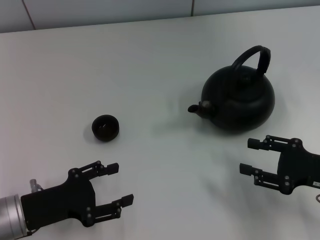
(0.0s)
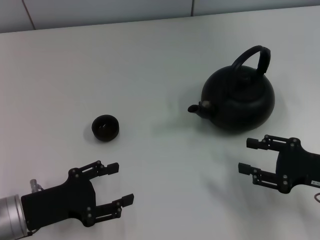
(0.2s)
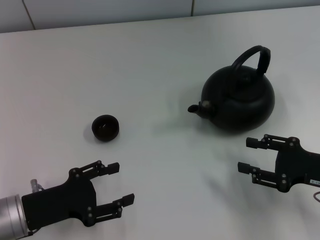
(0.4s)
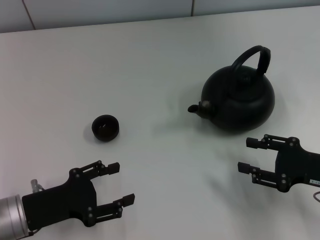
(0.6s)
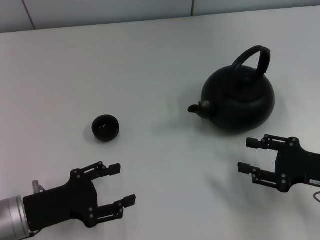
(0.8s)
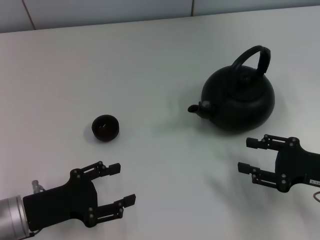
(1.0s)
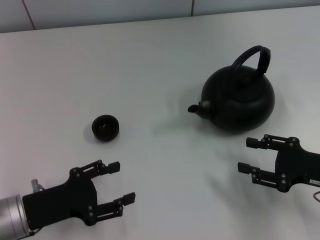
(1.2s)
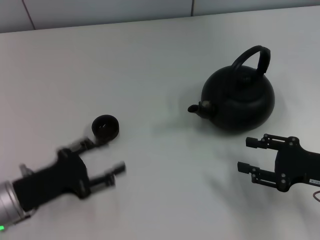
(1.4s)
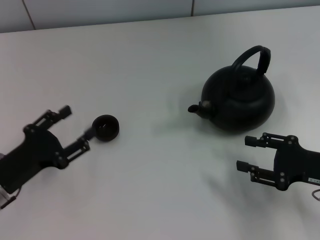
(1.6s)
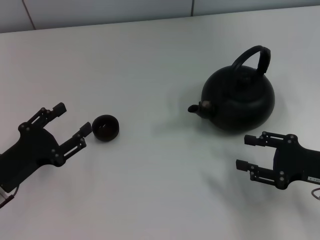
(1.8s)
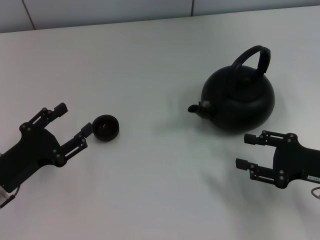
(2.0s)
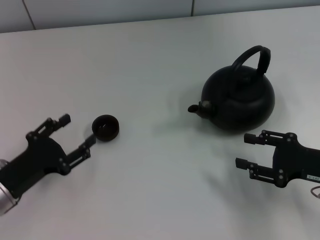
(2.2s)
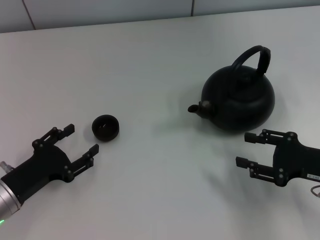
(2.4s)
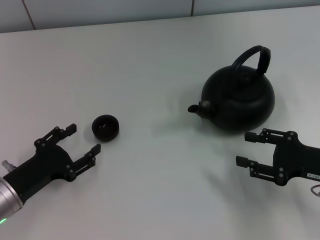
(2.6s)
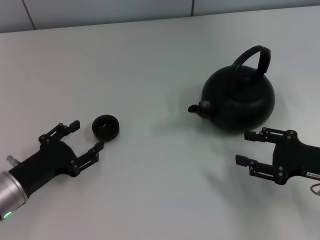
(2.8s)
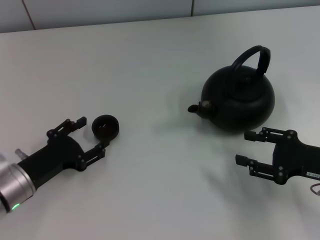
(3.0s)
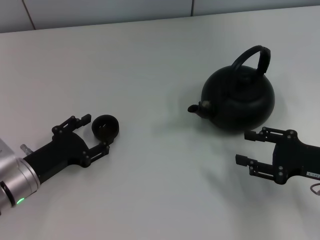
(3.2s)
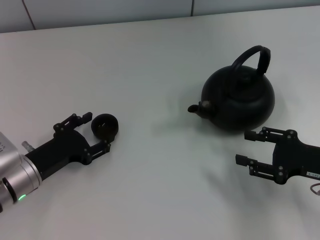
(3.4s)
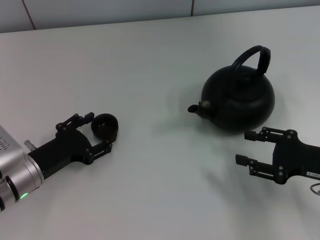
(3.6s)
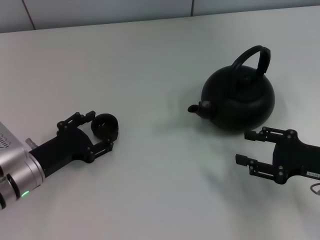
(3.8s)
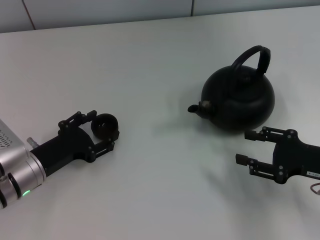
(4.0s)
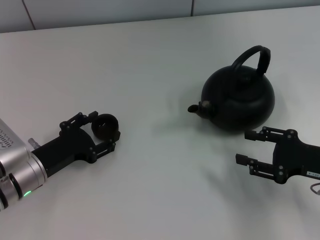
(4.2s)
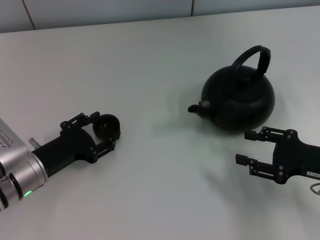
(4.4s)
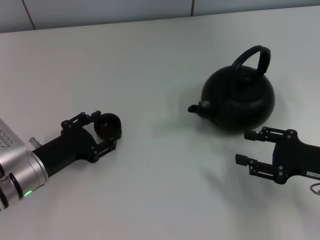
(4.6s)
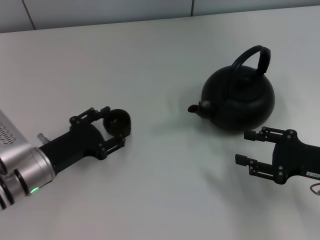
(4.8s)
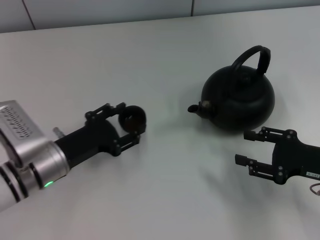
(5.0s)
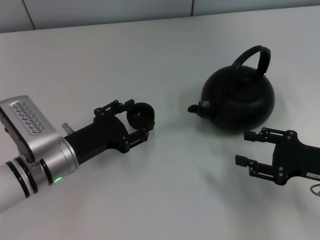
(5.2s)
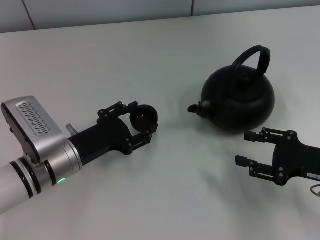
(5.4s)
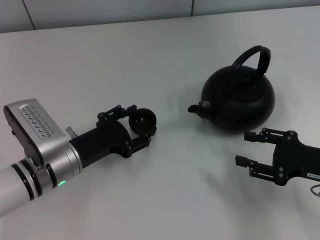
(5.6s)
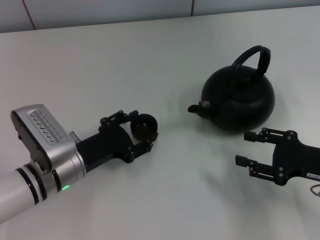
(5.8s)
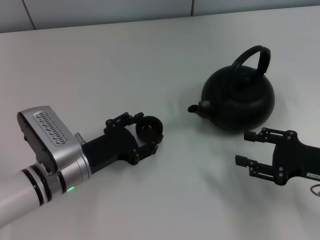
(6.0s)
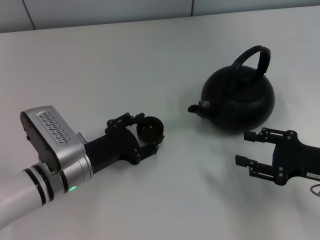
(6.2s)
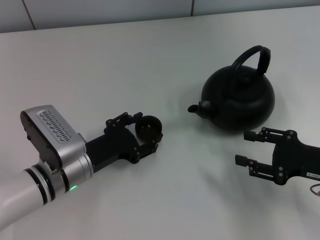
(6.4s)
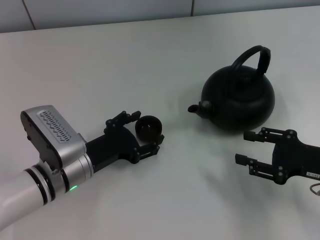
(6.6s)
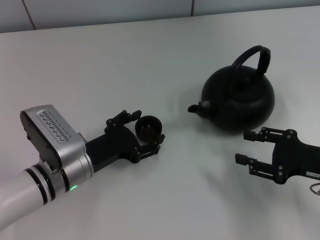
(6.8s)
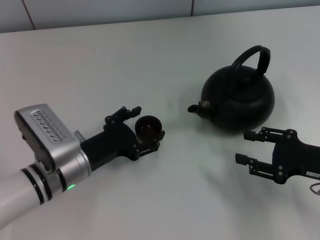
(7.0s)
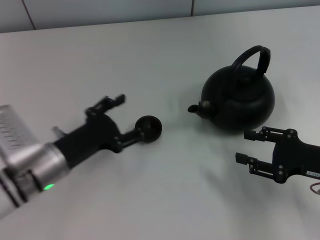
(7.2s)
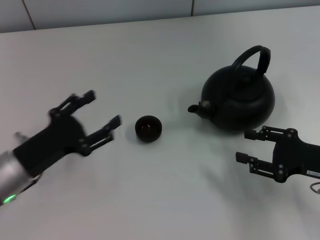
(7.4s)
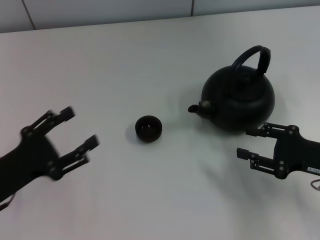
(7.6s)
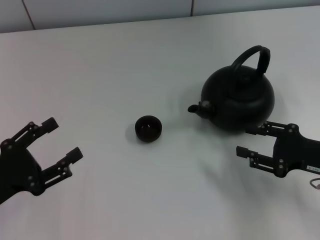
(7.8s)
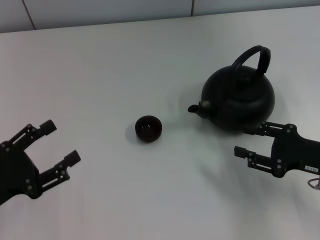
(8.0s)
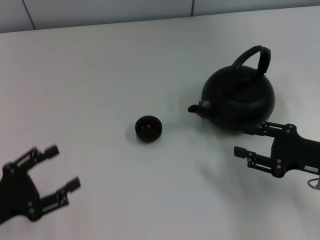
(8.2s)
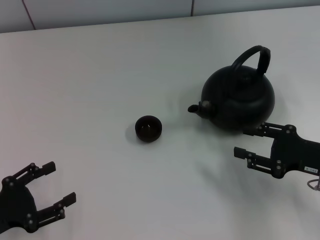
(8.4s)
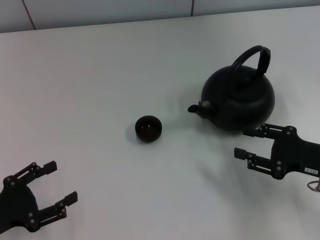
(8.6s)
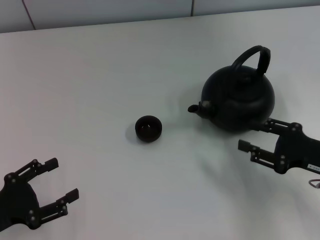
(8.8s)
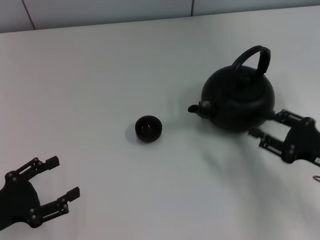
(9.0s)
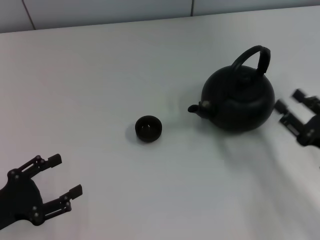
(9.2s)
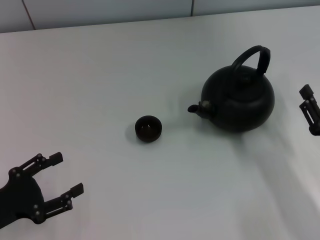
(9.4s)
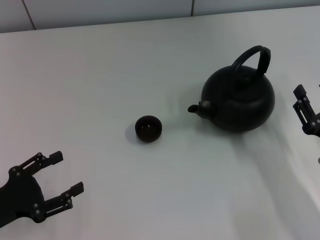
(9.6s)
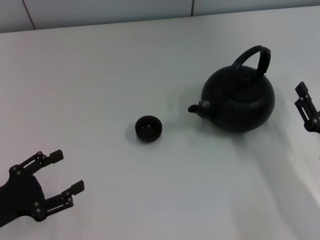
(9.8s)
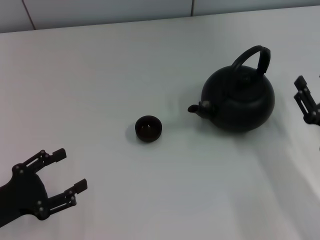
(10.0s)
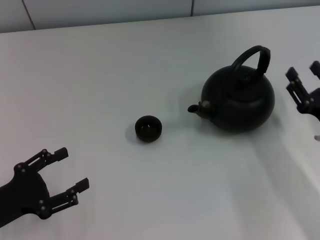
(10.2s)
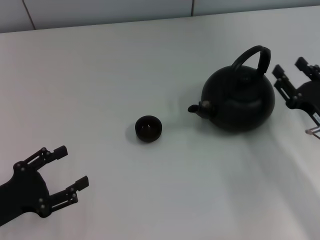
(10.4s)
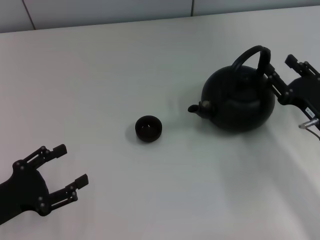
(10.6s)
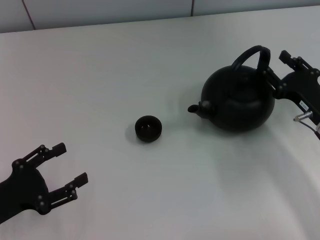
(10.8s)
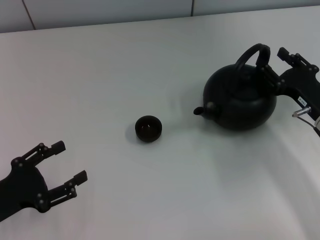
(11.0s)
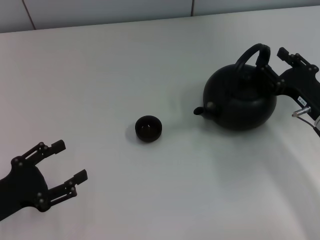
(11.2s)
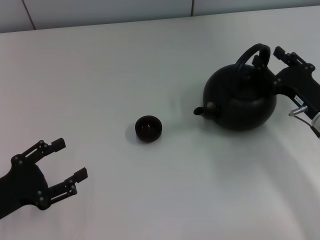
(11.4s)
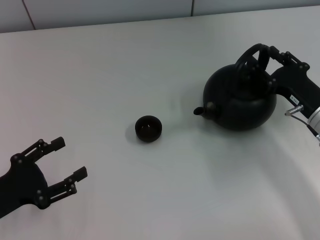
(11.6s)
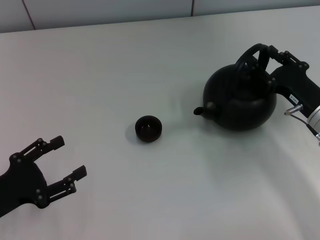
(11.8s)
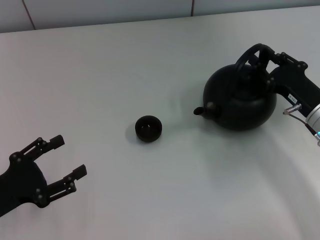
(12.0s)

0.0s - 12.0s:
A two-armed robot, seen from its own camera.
Task of the whole recording: Grasp the handle of the teapot with one hand and pour tea into the teacup.
Step, 0.0s - 4.8s: Pick up the teacup with the left gripper.
Step, 5.0s - 7.0s: Place the teacup in the center of view with the left gripper.
1.6s - 4.4s: There are only small adjustments of the grippers.
4.4s - 6.0s: The left gripper travels to the right by about 5 cm.
6.0s - 7.6s: The left gripper heads to the left and backward, covering approximately 15 cm, and opens.
7.6s - 9.0s: The grippers make only small movements.
10.4s - 12.0s: The right gripper moves roughly 5 cm.

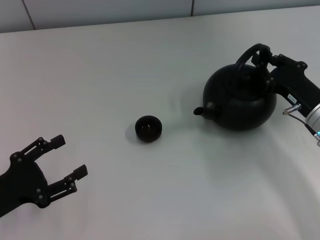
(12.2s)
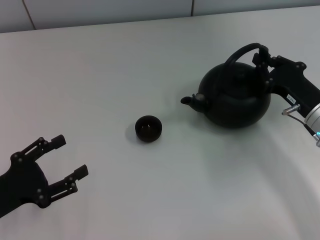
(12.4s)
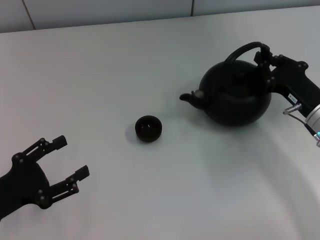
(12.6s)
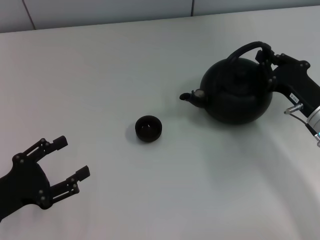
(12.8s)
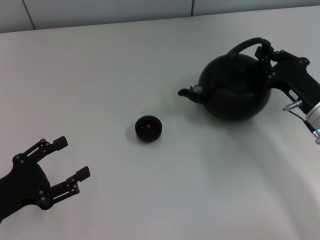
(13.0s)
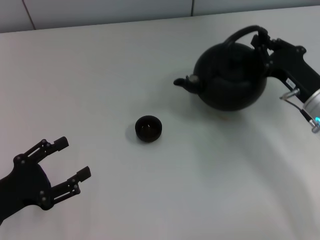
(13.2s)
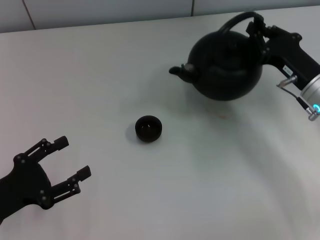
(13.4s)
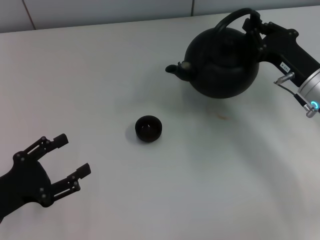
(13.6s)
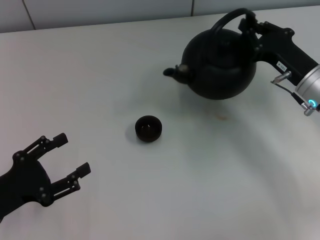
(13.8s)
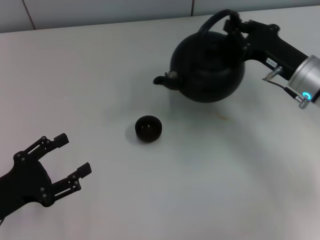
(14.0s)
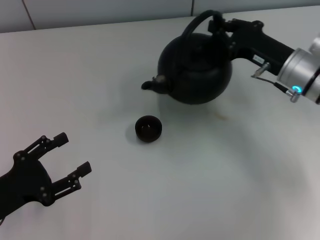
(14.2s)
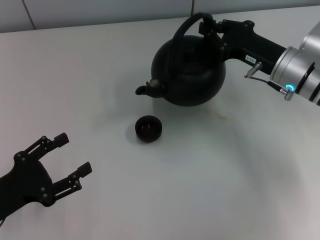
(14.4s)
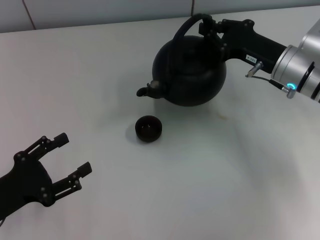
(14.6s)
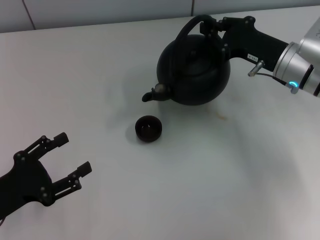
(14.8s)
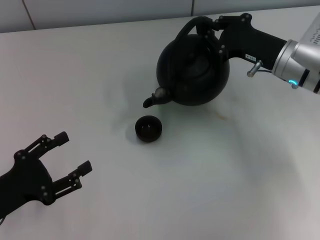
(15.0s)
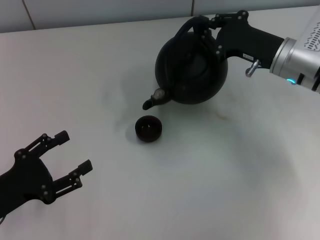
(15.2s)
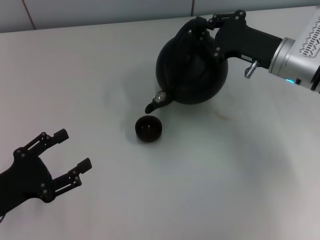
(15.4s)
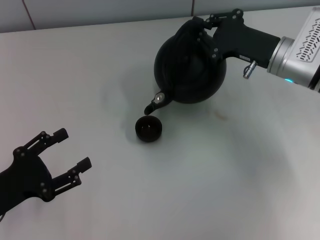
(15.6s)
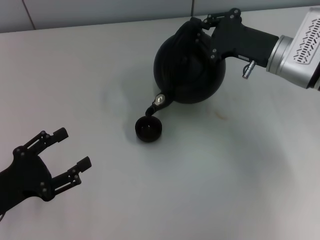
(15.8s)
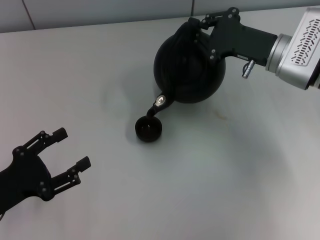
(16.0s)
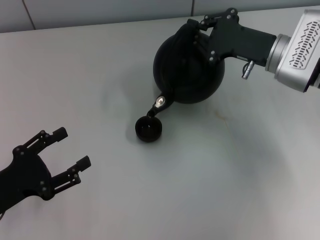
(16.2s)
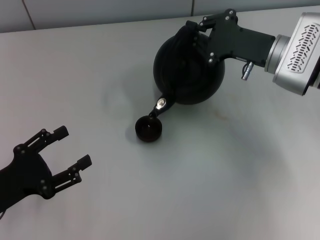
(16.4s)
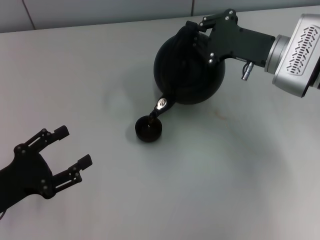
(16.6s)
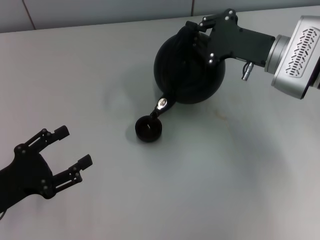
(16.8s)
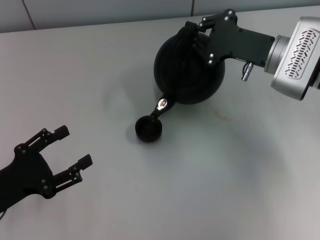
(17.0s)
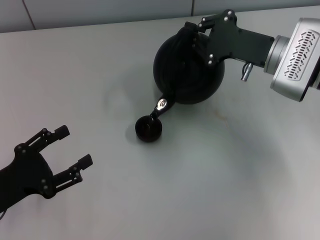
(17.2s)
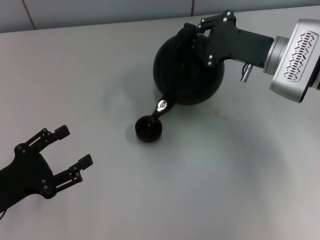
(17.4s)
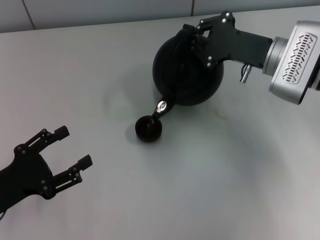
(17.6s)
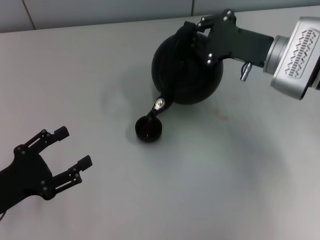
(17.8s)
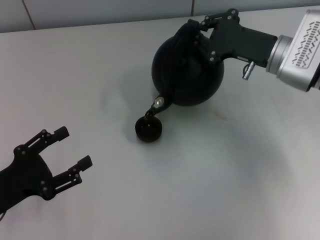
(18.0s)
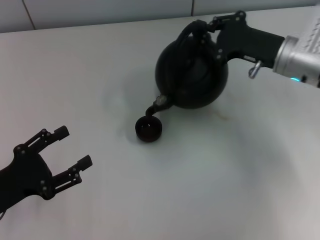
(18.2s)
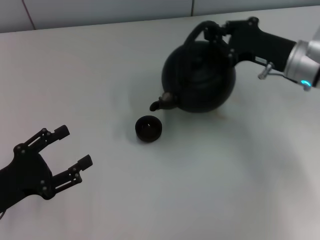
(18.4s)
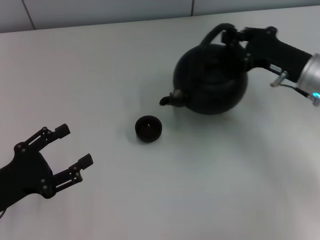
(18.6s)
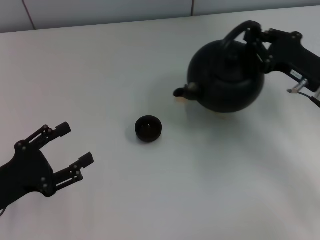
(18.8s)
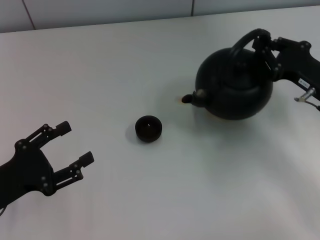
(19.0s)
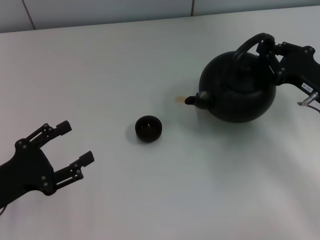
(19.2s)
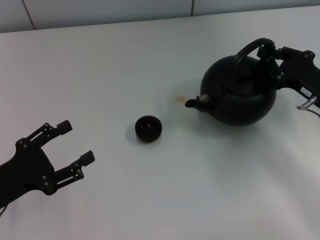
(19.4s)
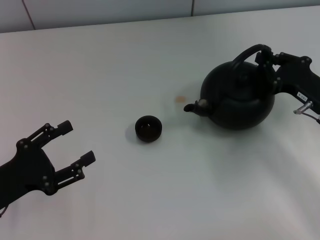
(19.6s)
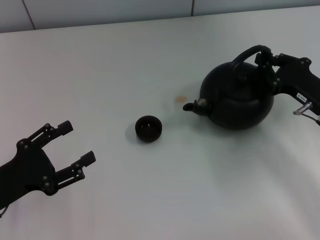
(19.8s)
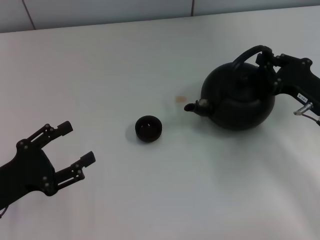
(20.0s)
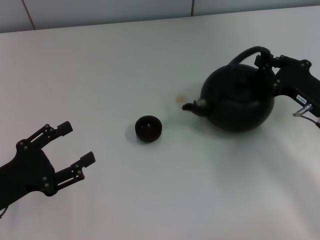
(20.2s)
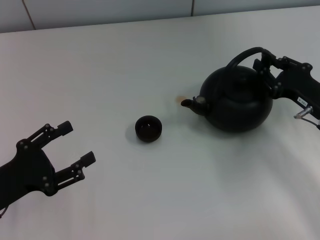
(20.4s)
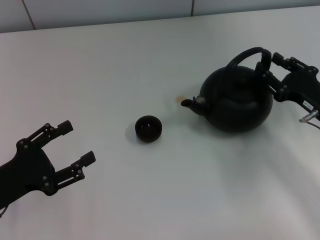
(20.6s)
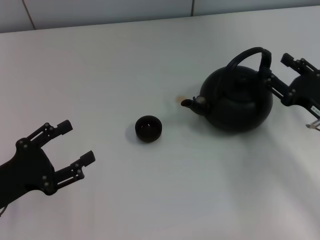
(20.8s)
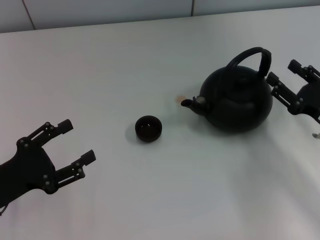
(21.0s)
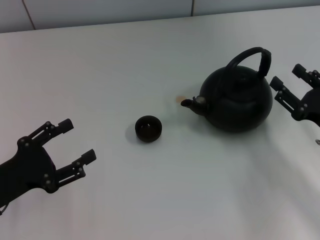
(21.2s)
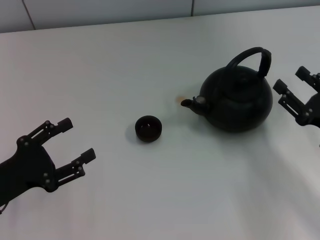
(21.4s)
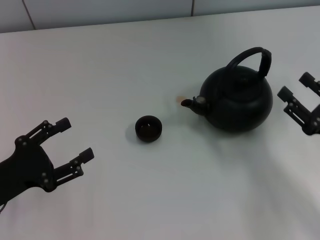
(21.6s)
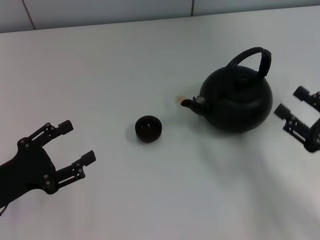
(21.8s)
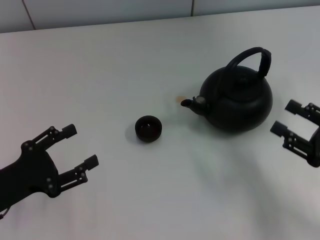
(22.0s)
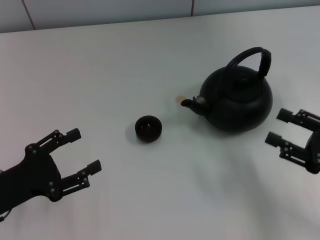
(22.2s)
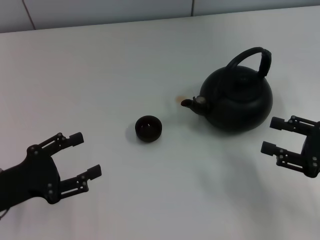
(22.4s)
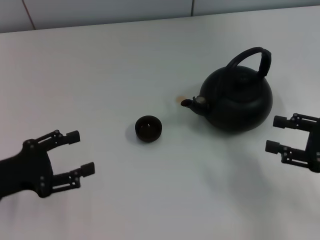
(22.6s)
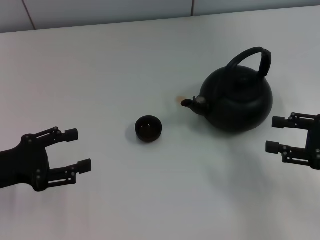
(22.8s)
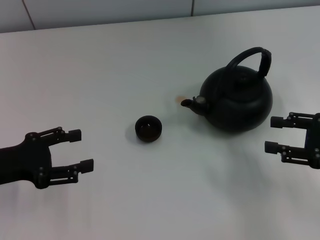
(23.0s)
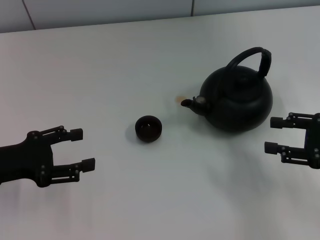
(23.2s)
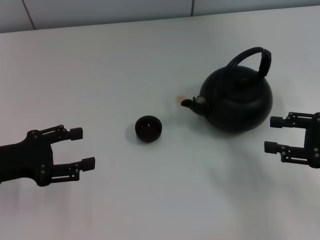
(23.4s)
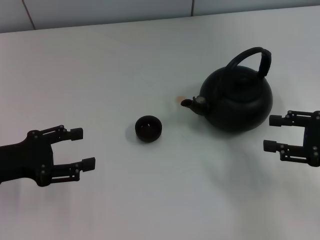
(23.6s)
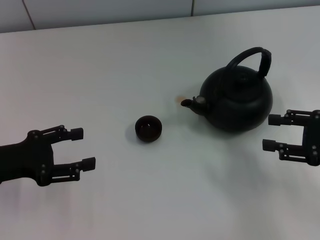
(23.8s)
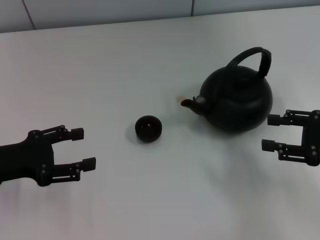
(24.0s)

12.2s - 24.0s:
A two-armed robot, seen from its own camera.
Task of the whole recording: Grasp the handle of the teapot with one hand and pour tea into the teacup.
Step, 18.6s - 21.4s: Put down the teapot with the right gripper.
12.2s - 13.6s: The right gripper closes up.
13.6s - 15.2s: The right gripper changes place by about 5 cm.
15.2s - 16.6s: The grippers move only a little.
16.6s - 18.2s: The grippers stay close to where they were, moving slightly.
18.2s - 19.6s: The right gripper moves backward, to the right and downward, about 10 cm.
19.6s - 21.0s: The right gripper changes place by roughly 5 cm, and opens.
21.0s - 22.6s: The right gripper moves roughly 5 cm.
22.6s - 24.0s: The grippers stay close to where they were, moving slightly.
